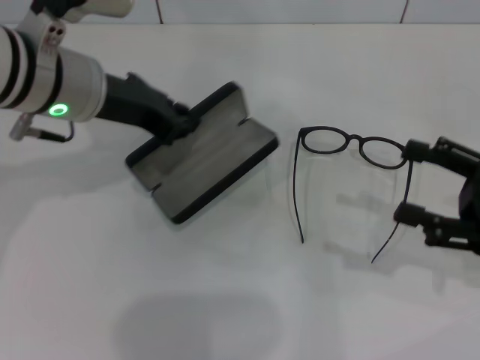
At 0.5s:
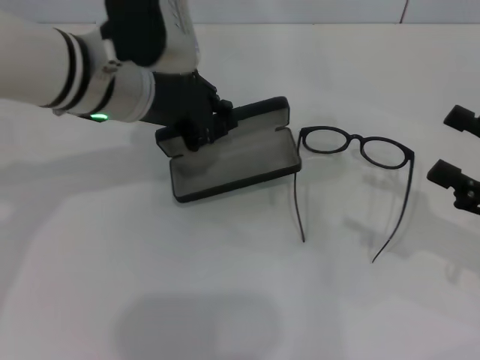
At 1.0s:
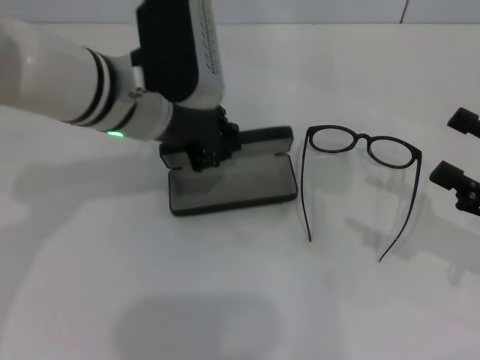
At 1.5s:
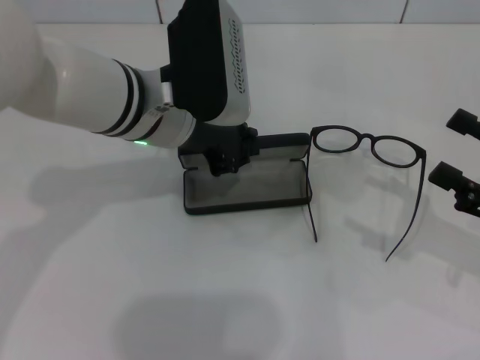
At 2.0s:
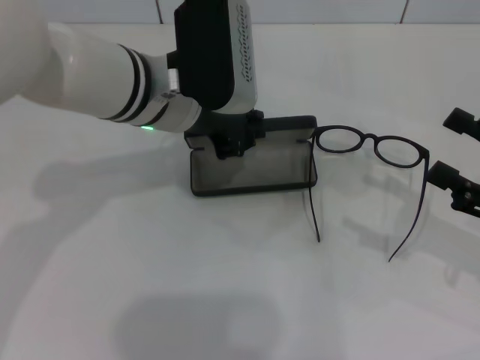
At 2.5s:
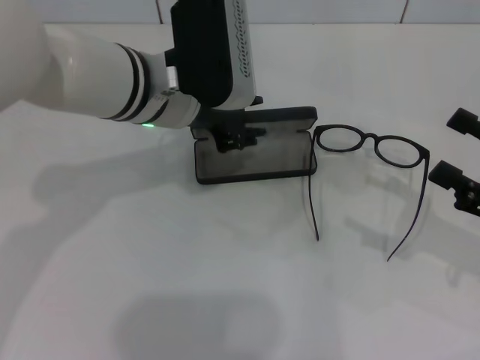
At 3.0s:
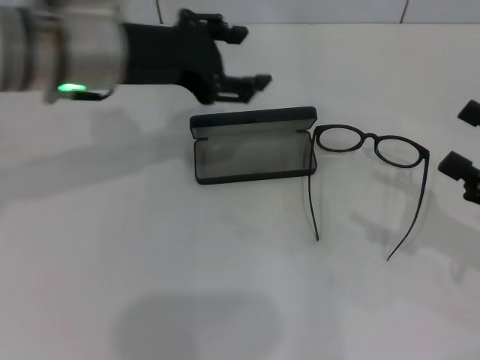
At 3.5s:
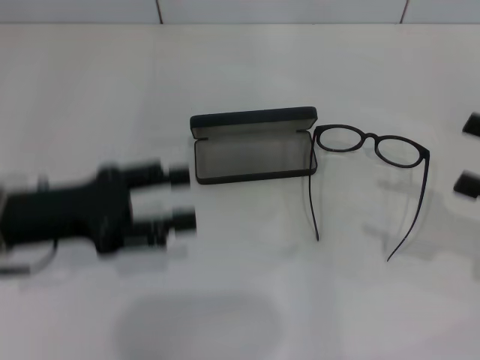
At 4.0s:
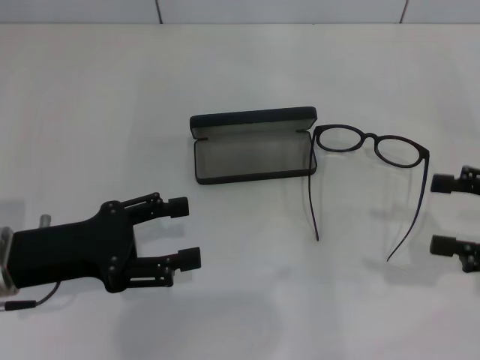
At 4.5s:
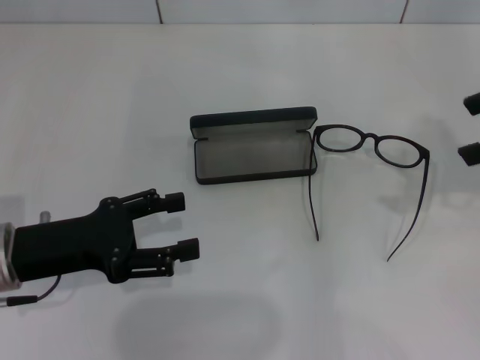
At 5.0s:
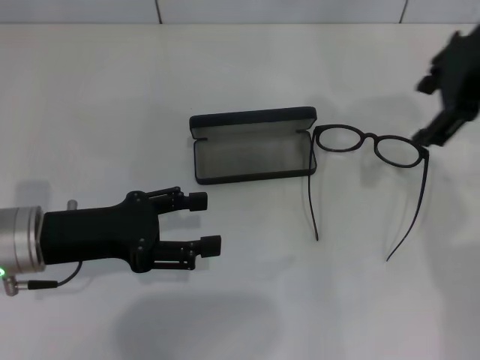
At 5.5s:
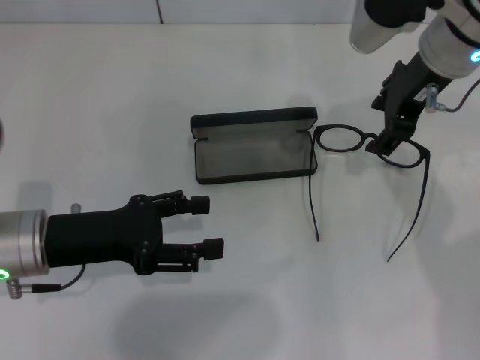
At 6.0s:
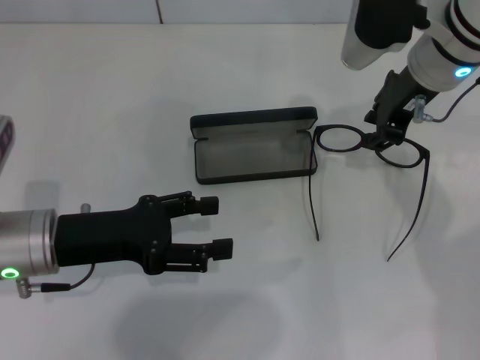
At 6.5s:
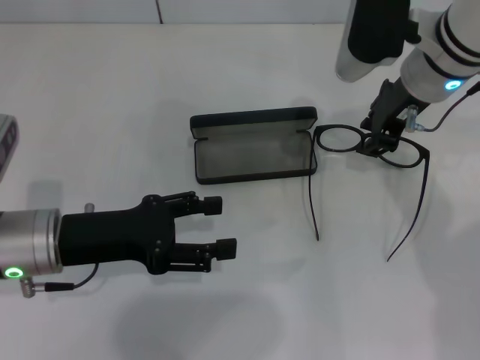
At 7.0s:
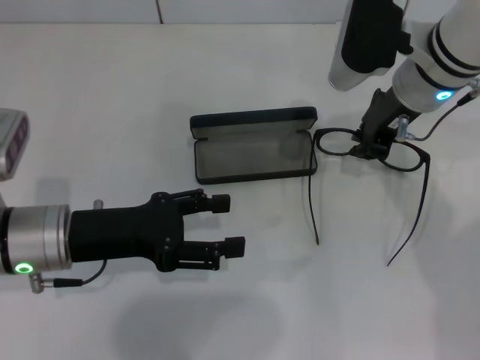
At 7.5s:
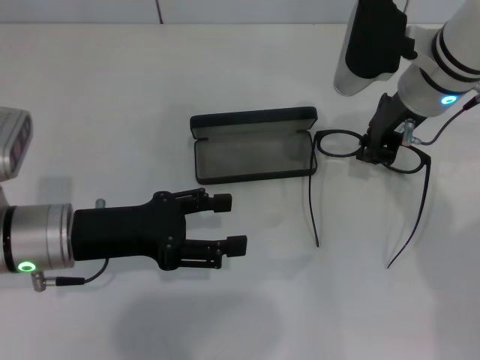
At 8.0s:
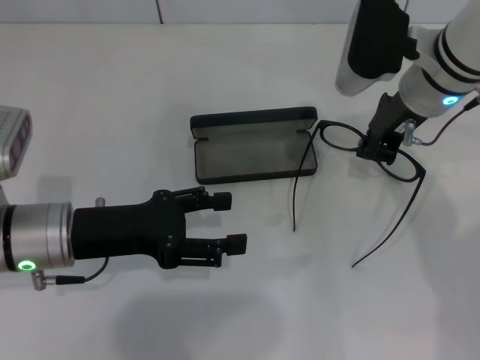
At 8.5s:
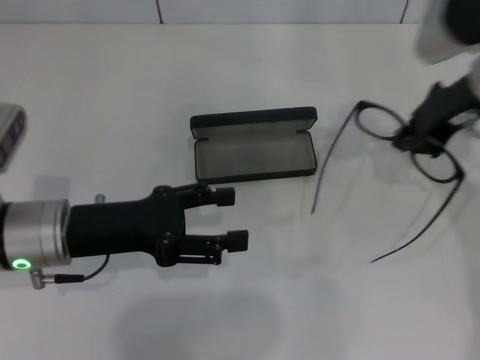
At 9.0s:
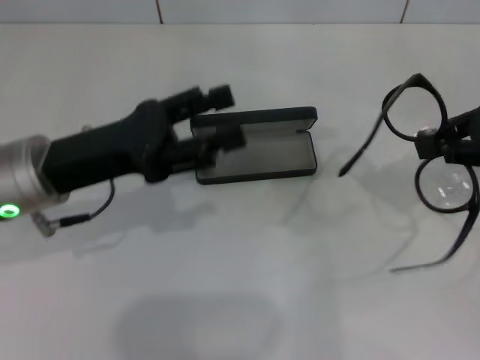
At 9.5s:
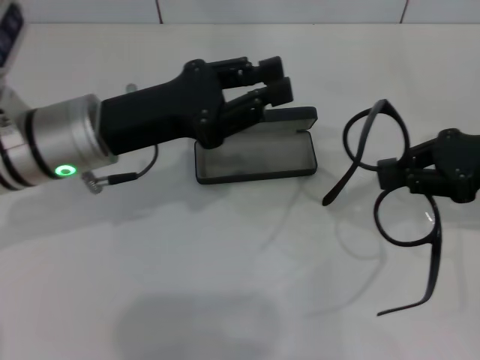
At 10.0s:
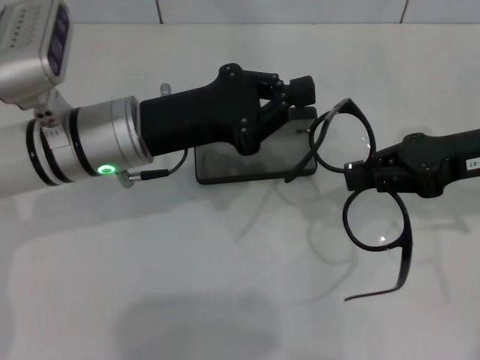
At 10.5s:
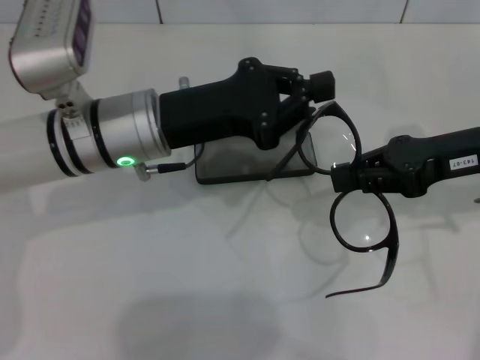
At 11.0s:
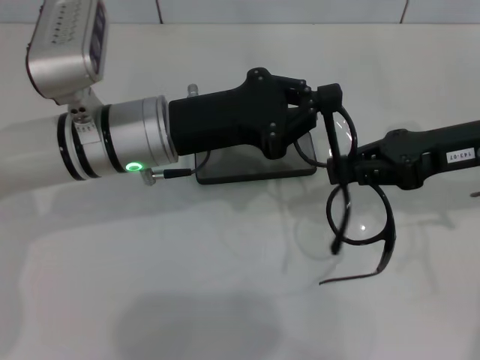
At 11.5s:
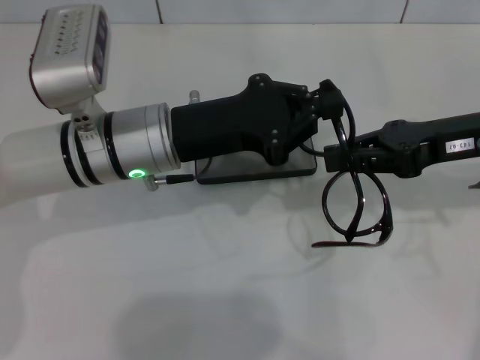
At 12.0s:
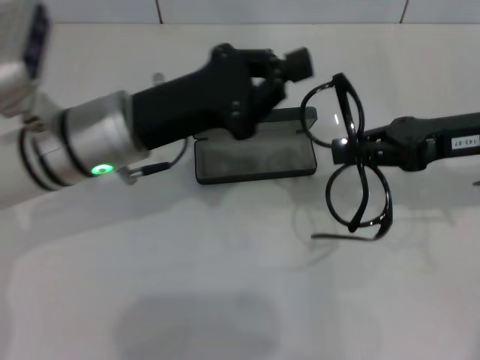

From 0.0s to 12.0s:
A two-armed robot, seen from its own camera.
Step, from 0.0s to 2.0s: Place the glasses case in the center of the table with your left hand.
Step, from 2.5s to 7.5s: Grab the eyeglass frame with your right hand.
From 0.0s to 2.0s: The left gripper heads to the right, covering some 5 cm.
From 2.0s to 4.0s: The left gripper goes some 20 cm to the left, backward and downward, and opens up.
From 4.0s to 6.0s: The right gripper shifts approximately 25 cm to the left, forward and upward, and closes up.
From 6.0s to 8.0s: The right gripper closes its fingers.
From 8.0s to 10.0s: The left gripper shifts approximately 10 cm to the right and forward, and closes its fingers. Meanwhile the right gripper travels to the right and backward by some 15 cm.
From 10.0s to 12.0s: The grippers make only small movements.

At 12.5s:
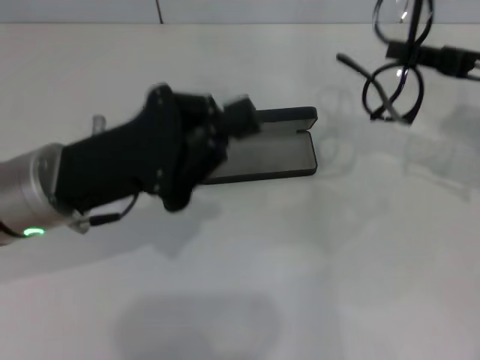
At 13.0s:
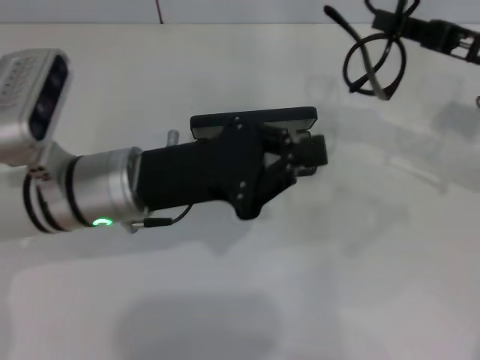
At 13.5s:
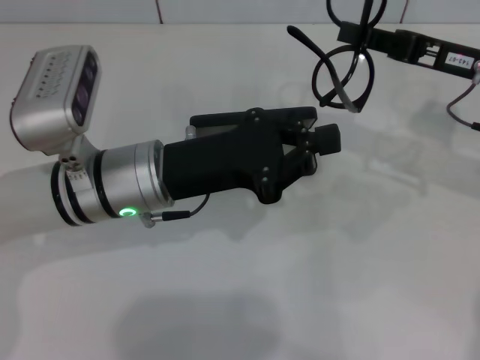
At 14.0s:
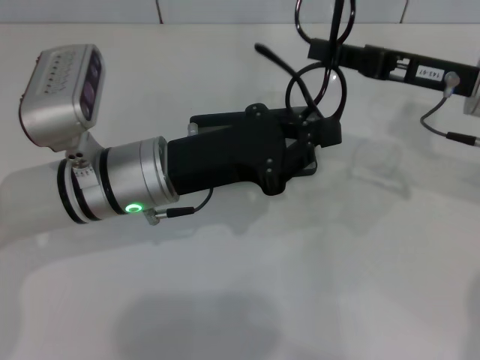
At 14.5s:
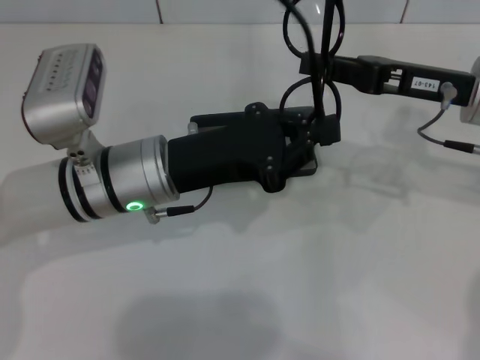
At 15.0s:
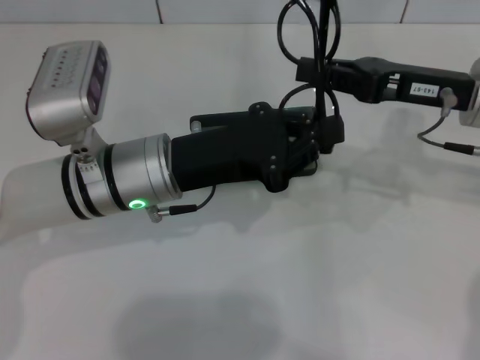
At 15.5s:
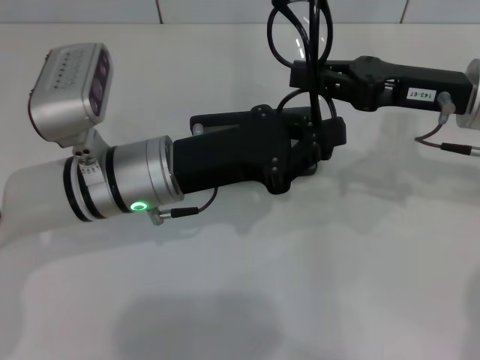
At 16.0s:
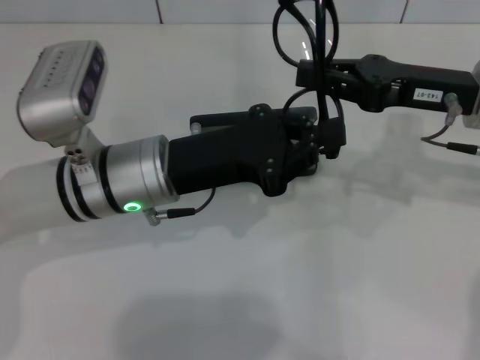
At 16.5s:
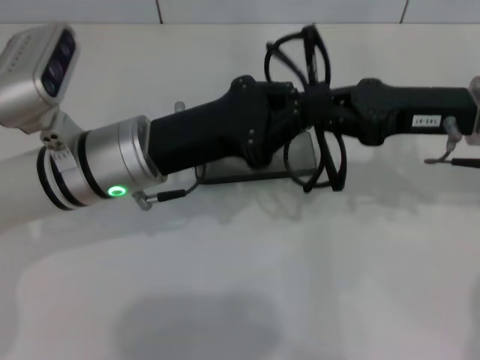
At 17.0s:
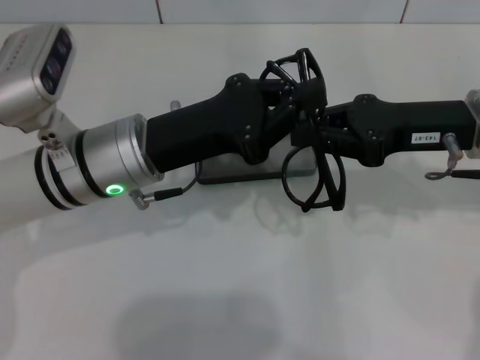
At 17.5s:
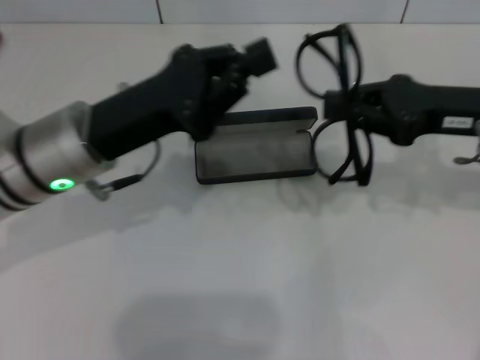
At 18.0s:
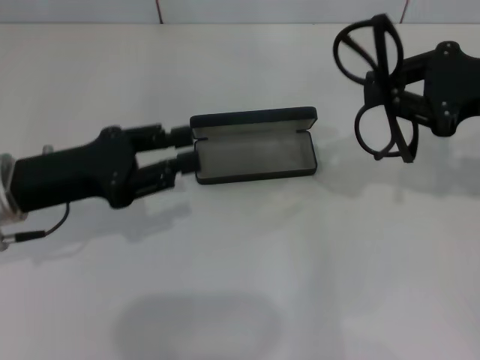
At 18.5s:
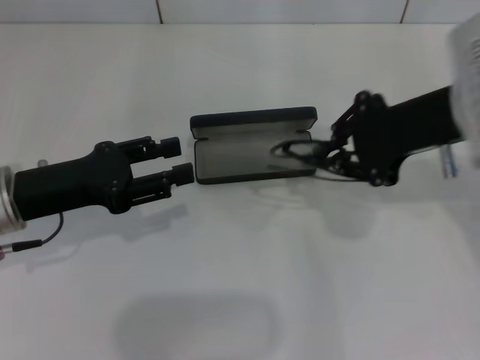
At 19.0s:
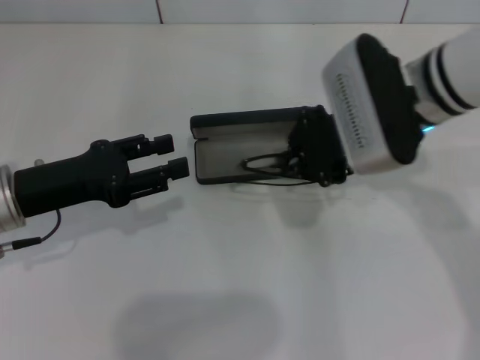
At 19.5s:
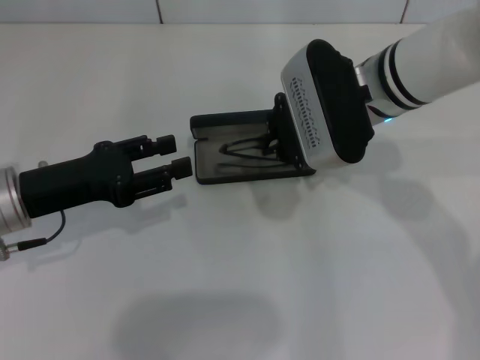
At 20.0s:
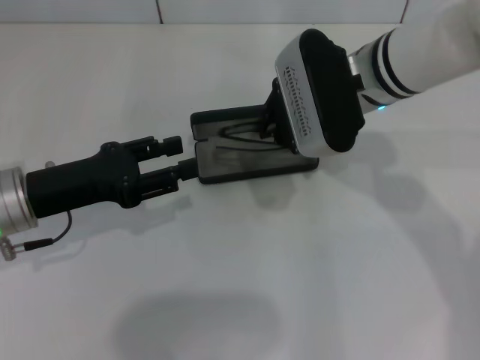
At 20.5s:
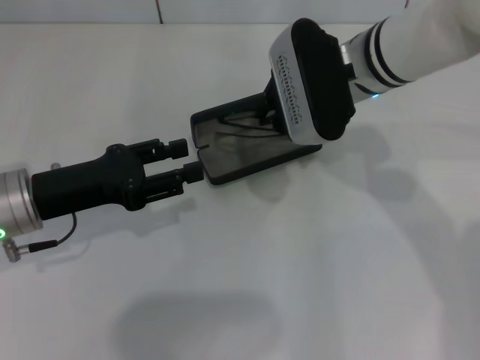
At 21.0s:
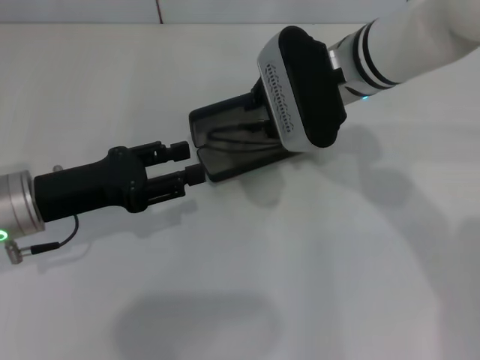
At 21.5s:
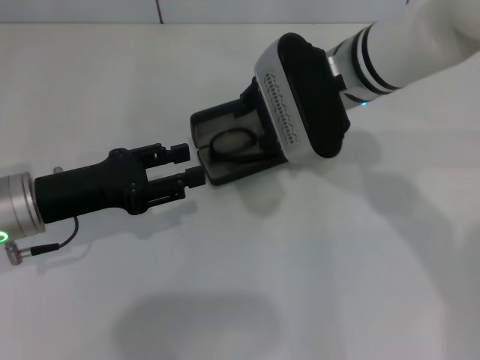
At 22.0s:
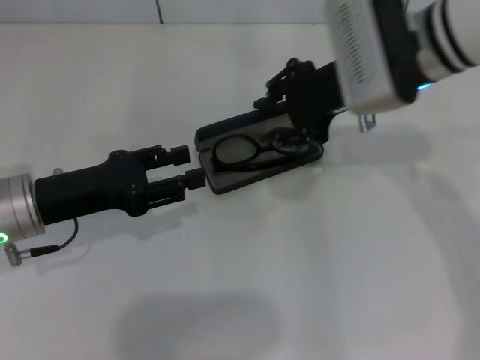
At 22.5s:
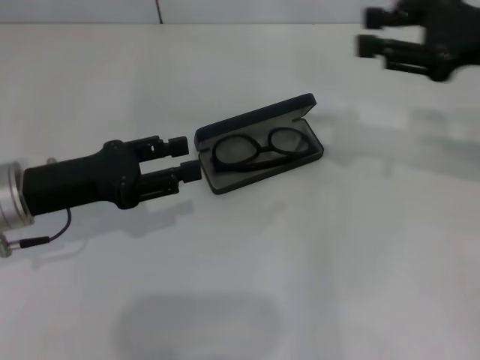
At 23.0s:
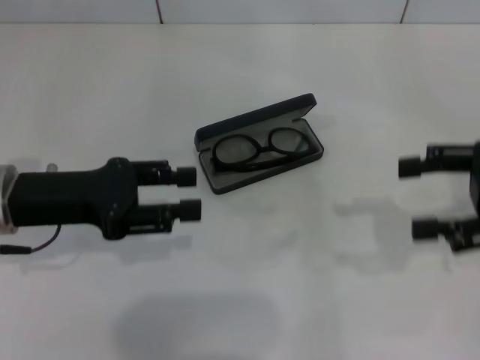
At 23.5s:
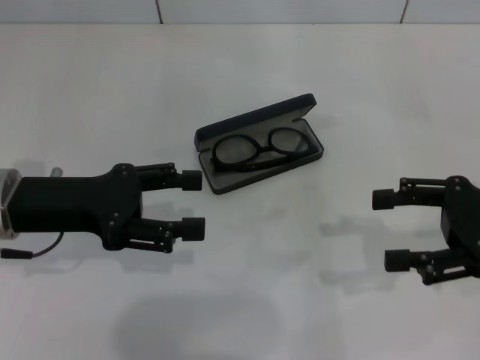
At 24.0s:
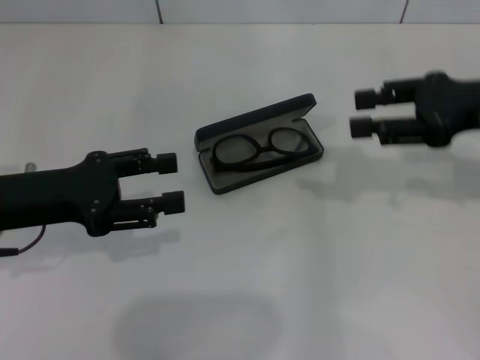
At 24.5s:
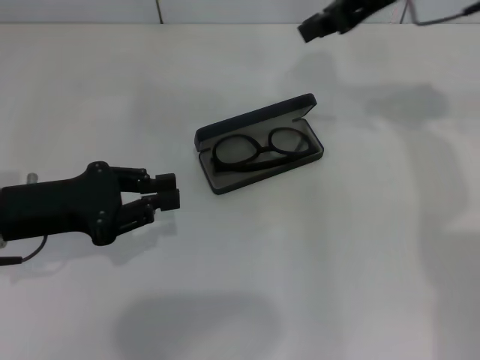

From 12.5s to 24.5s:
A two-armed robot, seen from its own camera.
Step, from 12.5s to 17.0s: Fold the frame with your left hand.
Step, from 17.5s to 21.5s: Put the glasses into the case with your right hand.
From 12.5s to 14.5s: The right gripper heads to the left, covering approximately 5 cm. The left gripper goes roughly 5 cm to the right.
From 16.5s to 18.5s: The right gripper shifts by roughly 5 cm. The left gripper moves to the left, about 10 cm, and opens its fingers.
From 18.5s to 20.5s: The right gripper heads to the left and forward, covering some 10 cm.
From 20.5s to 22.5s: The right gripper moves to the right, approximately 20 cm, and opens its fingers.
From 22.5s to 24.5s: The right gripper heads to the left, upward and forward, covering about 15 cm, and opens, then closes again.

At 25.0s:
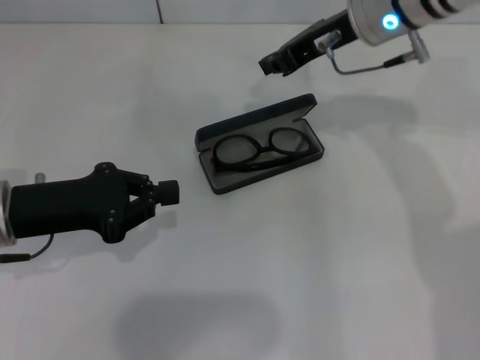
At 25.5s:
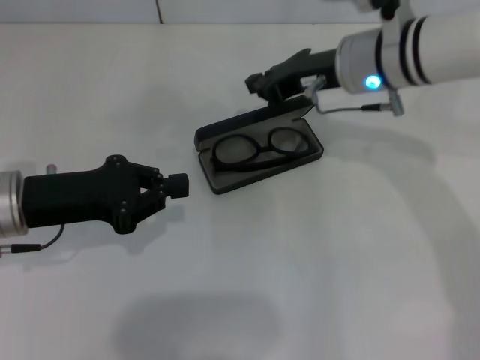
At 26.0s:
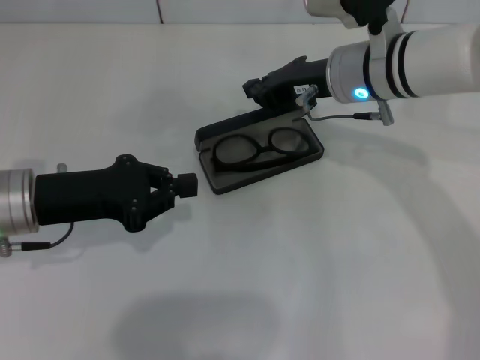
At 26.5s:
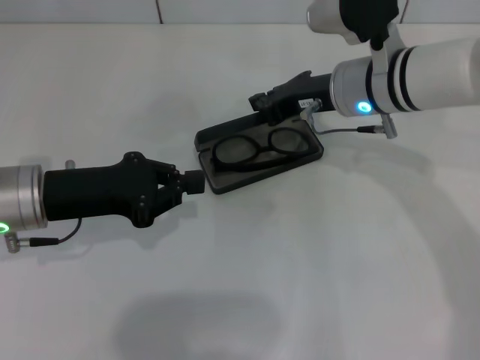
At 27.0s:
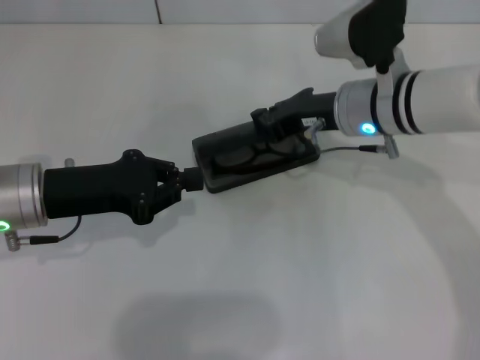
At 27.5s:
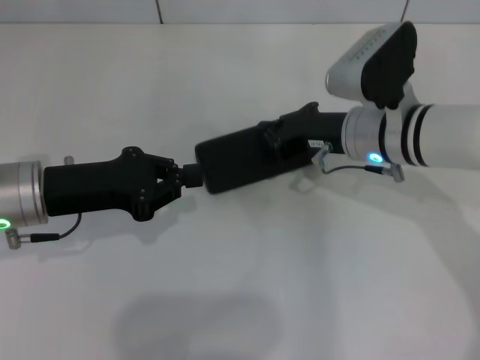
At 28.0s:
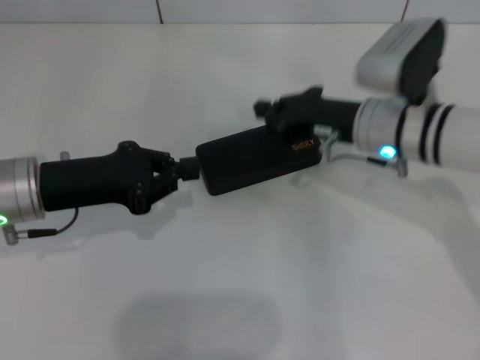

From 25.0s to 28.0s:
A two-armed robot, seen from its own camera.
Step, from 25.0s to 27.5s: Close the glasses case with your right hand.
From 25.0s to 26.5s: The right gripper travels downward by approximately 10 cm.
From 26.5s to 28.0s: The right gripper ends up roughly 5 cm from where it was.
